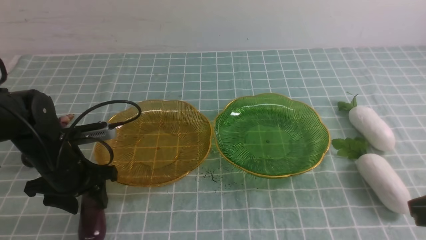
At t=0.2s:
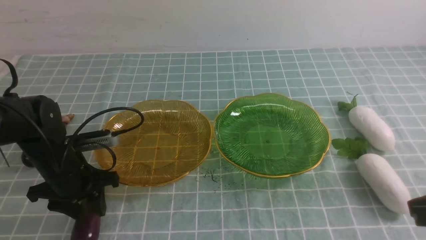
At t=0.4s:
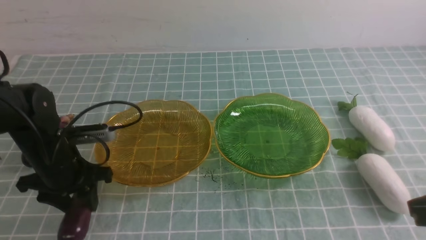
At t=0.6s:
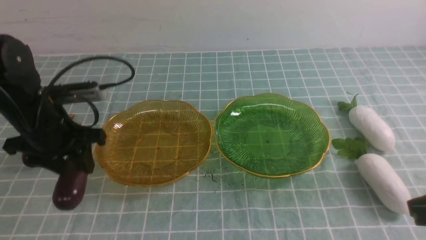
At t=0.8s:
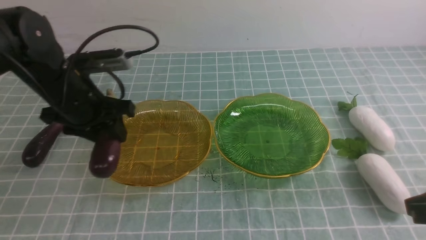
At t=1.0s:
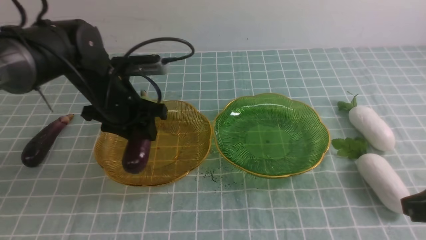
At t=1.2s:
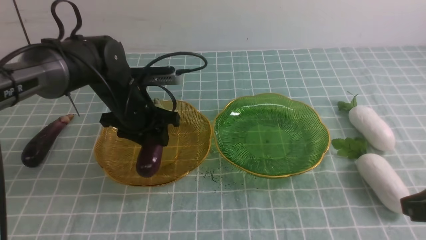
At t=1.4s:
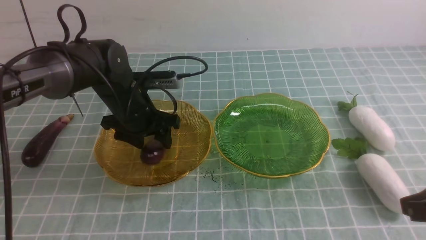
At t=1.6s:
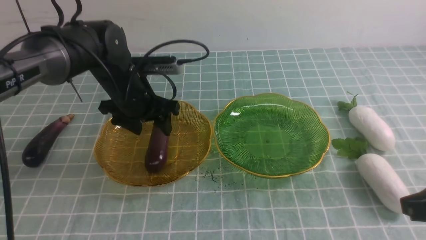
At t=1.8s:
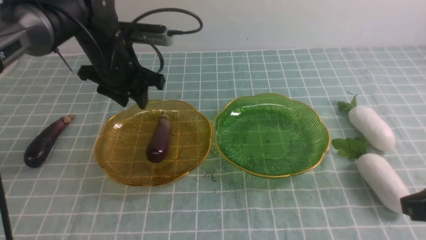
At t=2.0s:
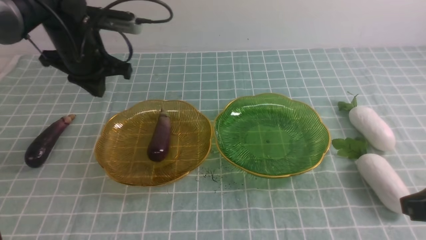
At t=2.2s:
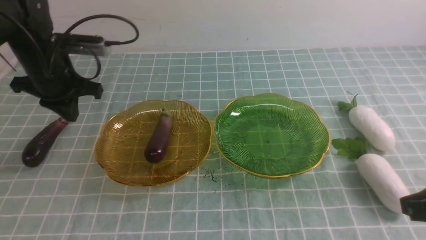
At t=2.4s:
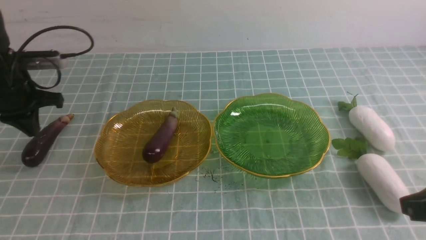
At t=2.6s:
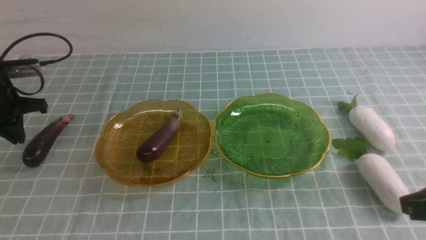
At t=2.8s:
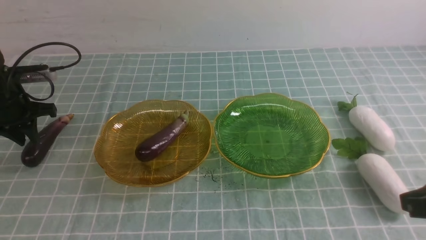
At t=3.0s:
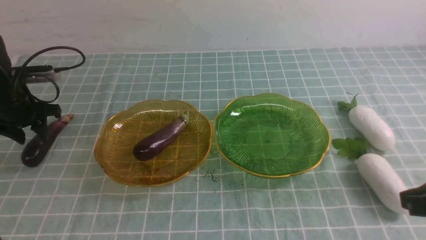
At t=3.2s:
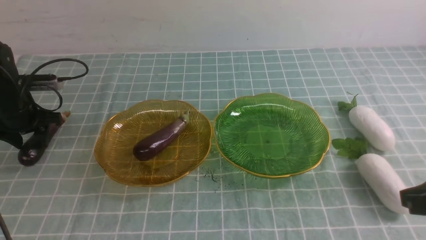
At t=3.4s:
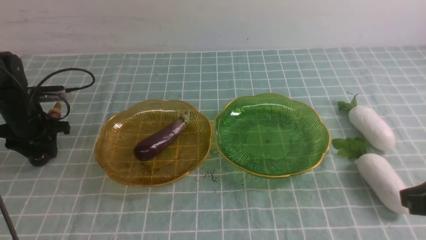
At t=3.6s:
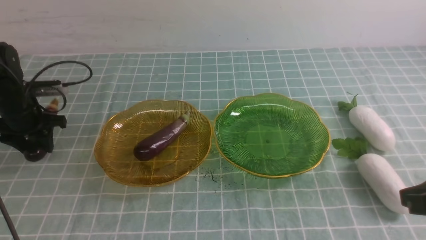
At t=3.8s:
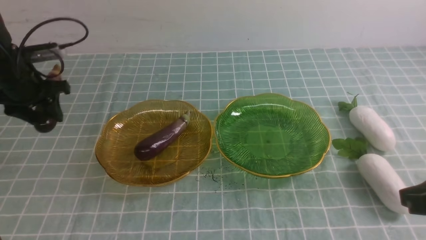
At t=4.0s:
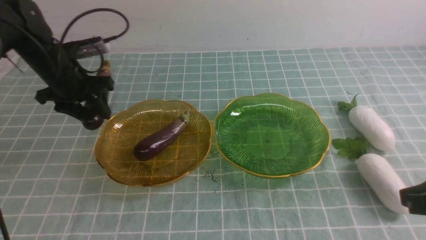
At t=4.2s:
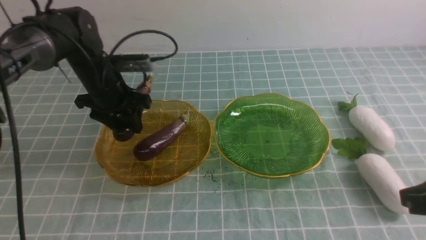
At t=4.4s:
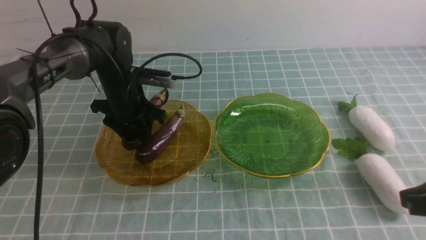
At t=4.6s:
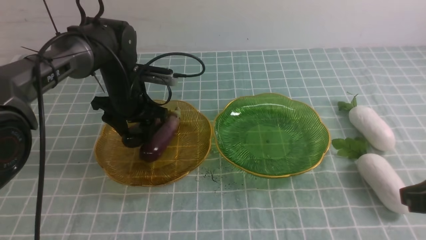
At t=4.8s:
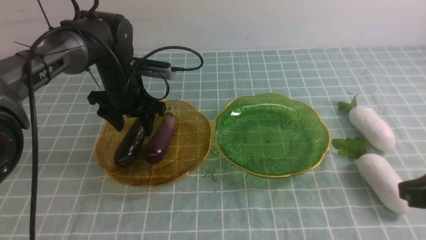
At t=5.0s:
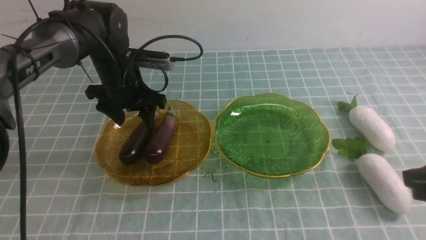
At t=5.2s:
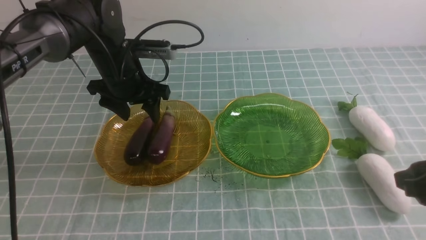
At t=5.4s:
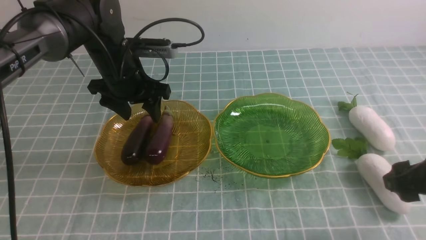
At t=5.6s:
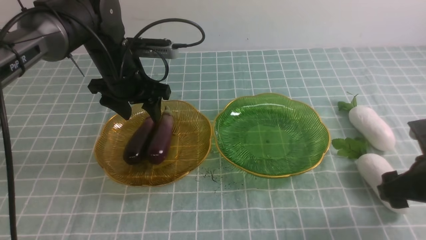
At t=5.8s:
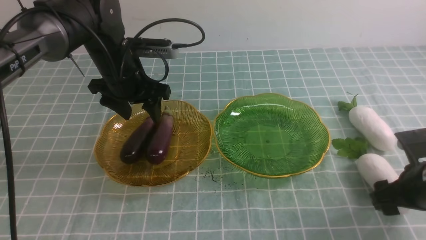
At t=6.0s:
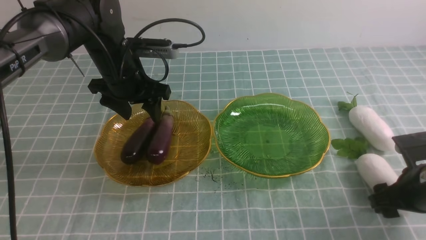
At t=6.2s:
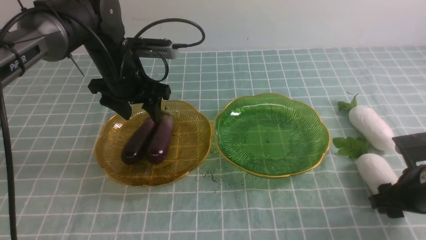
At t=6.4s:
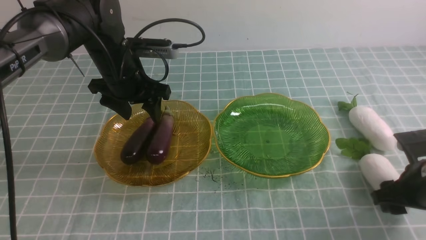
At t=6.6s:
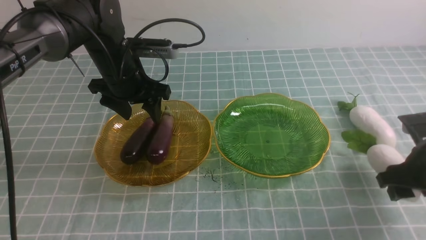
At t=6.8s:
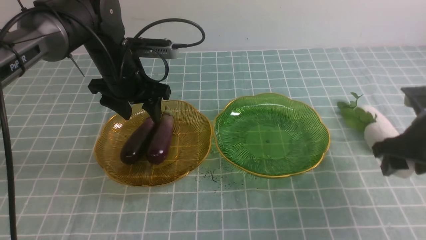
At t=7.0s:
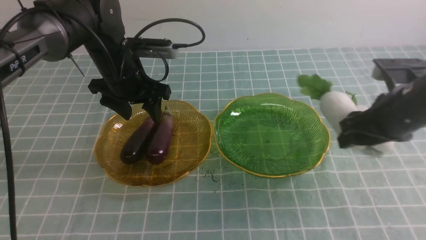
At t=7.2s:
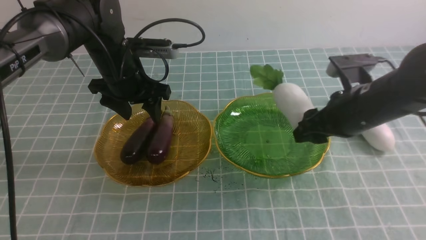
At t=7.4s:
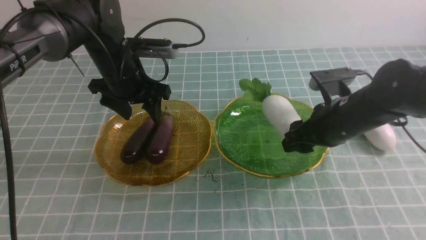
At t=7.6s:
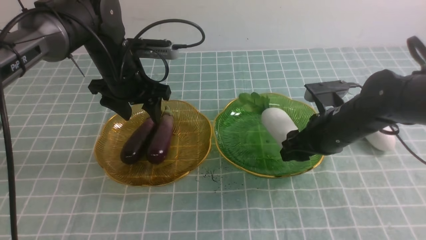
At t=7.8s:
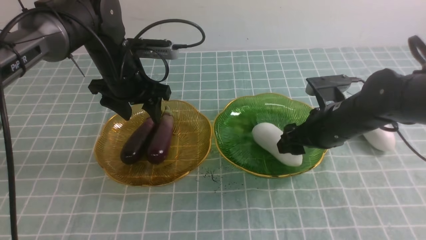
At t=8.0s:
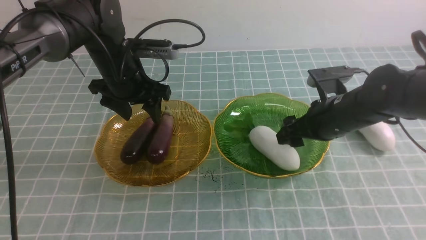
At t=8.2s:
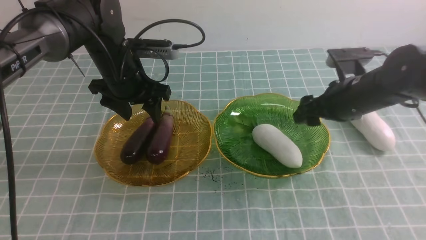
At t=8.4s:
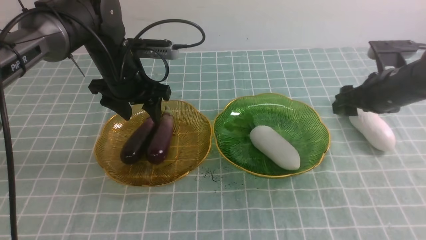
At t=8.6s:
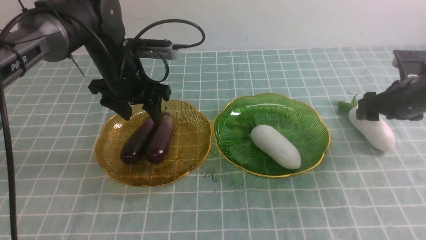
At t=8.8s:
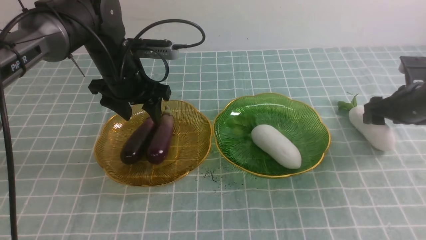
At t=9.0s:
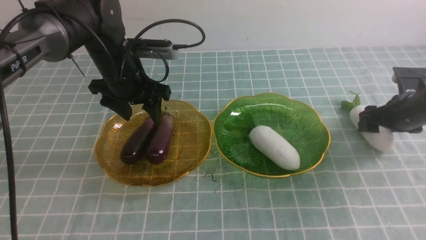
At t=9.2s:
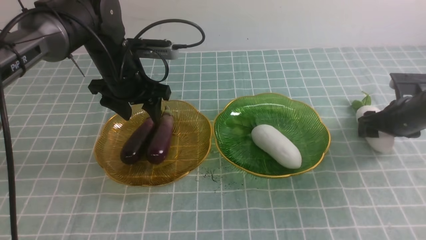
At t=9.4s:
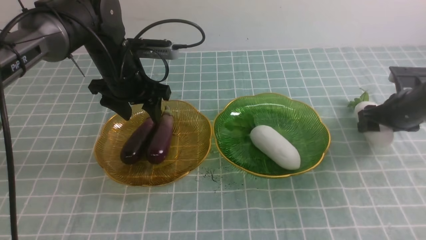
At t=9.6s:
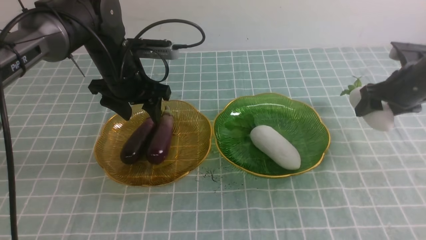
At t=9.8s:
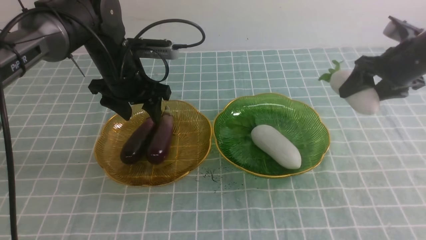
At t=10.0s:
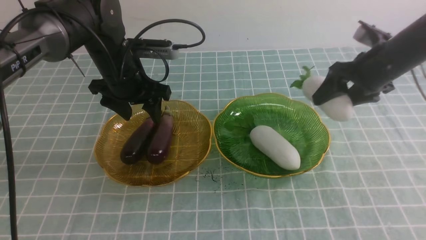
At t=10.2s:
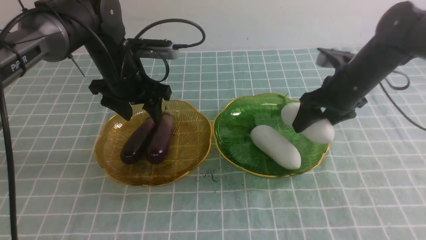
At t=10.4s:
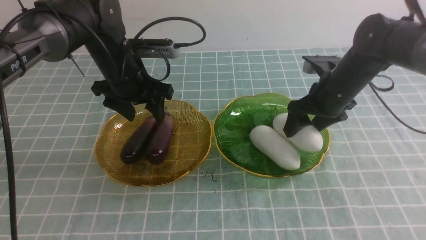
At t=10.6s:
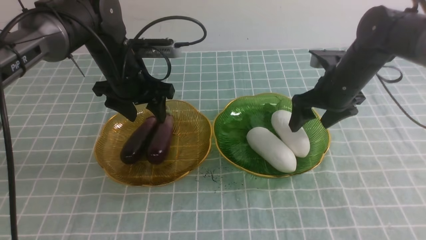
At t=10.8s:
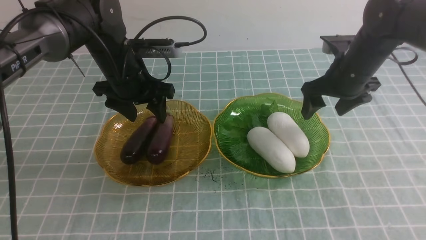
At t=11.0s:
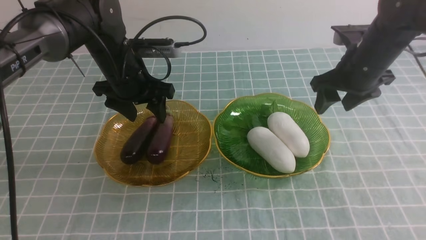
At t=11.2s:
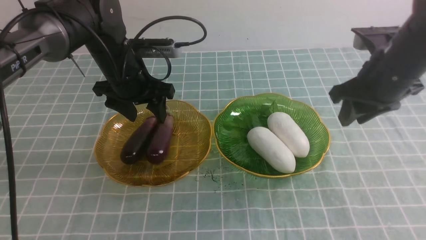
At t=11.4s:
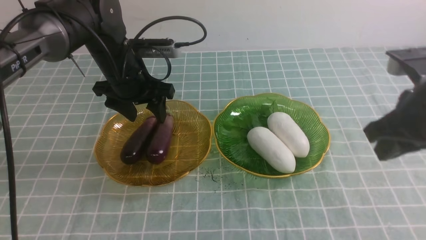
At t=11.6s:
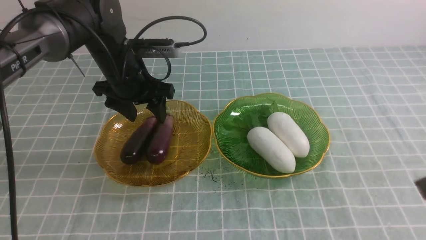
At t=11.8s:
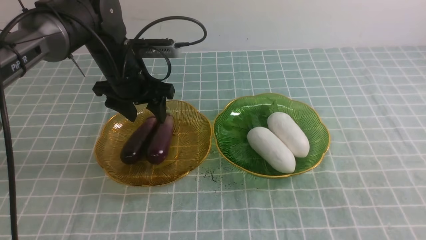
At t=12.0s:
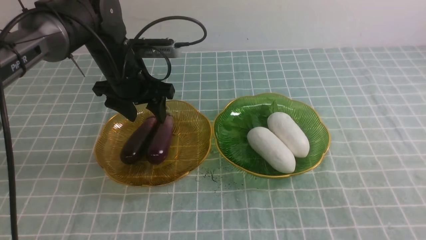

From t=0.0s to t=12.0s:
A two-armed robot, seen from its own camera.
Step, from t=0.0s to t=4.8s: use the left arm to grab an eggplant and put it into the left plate.
Step, from t=5.0s to t=8.0s: use the right arm to grab a radish and put it into the right plate.
Step, from t=8.2s to t=10.6s: use the right arm to grab a radish and put it into the right plate.
From t=0.0s to t=1.6s: The left gripper moves forward, to the right and upward, some 15 cm.
From t=1.6s to t=3.0s: The left gripper shifts some 20 cm to the left, and closes, then opens again.
From t=3.0s to t=4.4s: The left gripper travels to the right by roughly 20 cm.
From t=4.4s to t=6.0s: The right gripper shifts about 15 cm downward and forward, and opens its fingers; the left gripper heads upward, covering roughly 5 cm.
From t=6.0s to t=7.6s: The right gripper shifts about 15 cm to the left and forward.
From t=7.6s to t=9.0s: The right gripper goes about 15 cm to the right.
From t=9.0s to t=10.4s: The right gripper goes roughly 15 cm to the left and upward.
From t=10.4s to t=12.0s: The right gripper heads backward, covering approximately 35 cm, and closes up.

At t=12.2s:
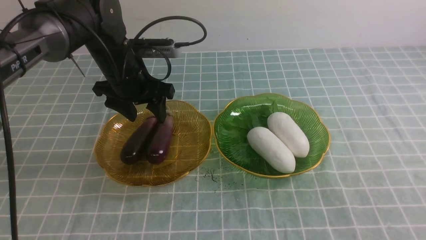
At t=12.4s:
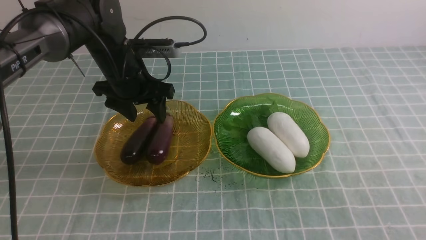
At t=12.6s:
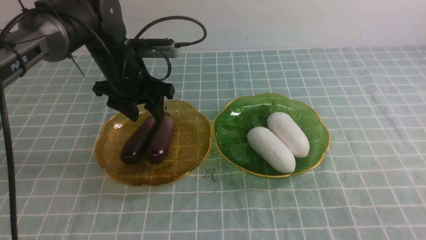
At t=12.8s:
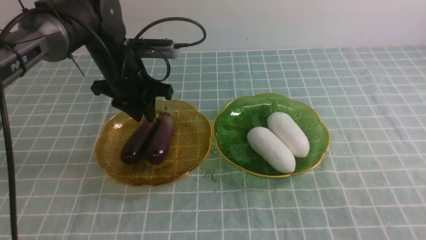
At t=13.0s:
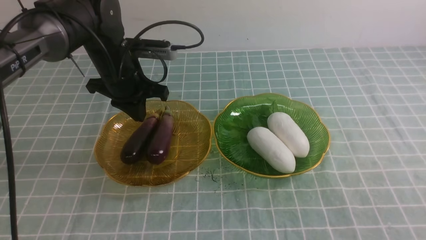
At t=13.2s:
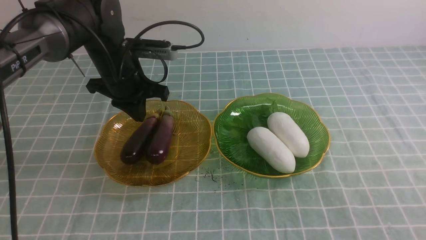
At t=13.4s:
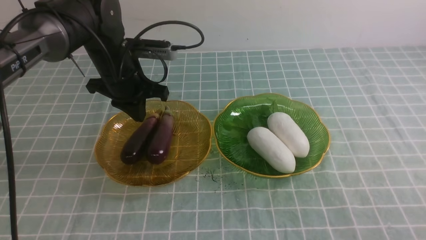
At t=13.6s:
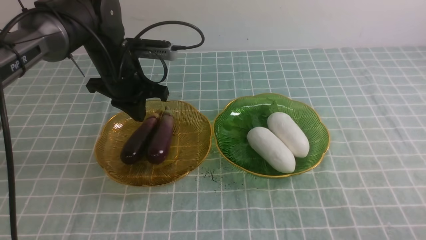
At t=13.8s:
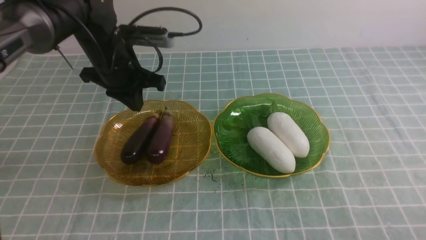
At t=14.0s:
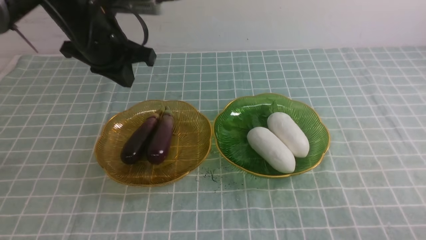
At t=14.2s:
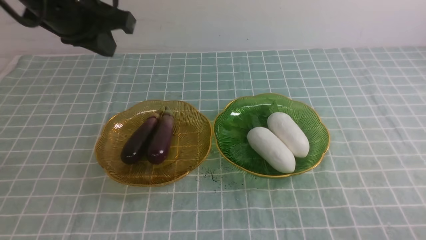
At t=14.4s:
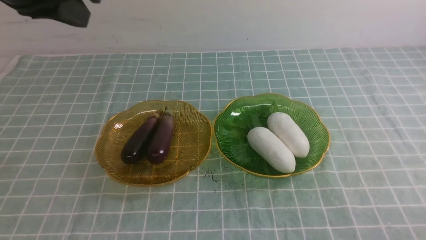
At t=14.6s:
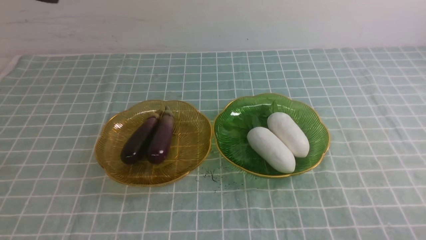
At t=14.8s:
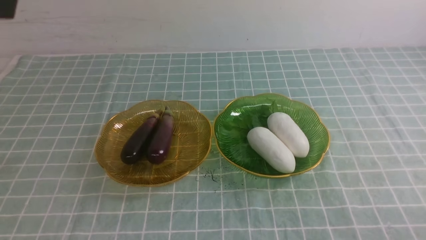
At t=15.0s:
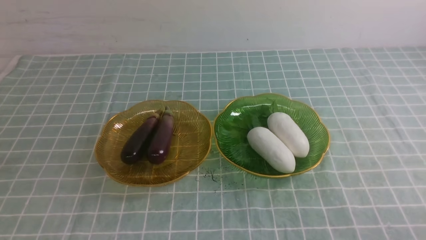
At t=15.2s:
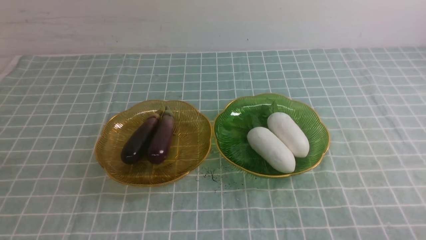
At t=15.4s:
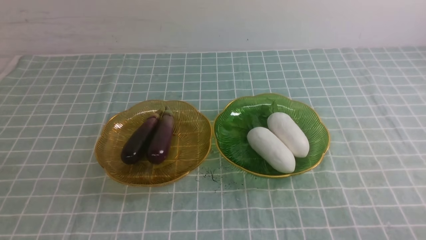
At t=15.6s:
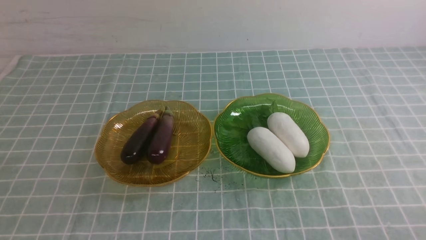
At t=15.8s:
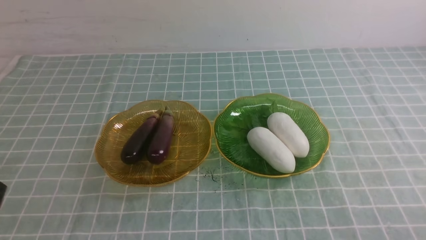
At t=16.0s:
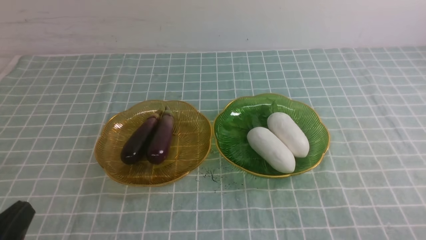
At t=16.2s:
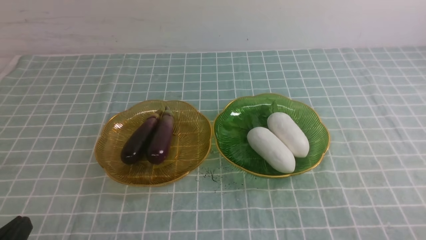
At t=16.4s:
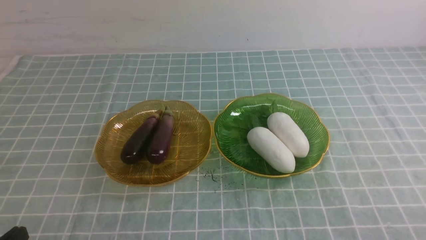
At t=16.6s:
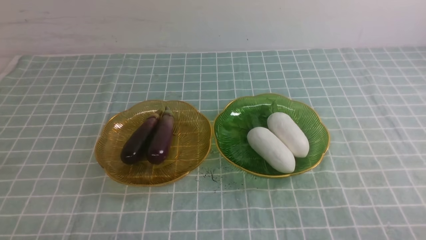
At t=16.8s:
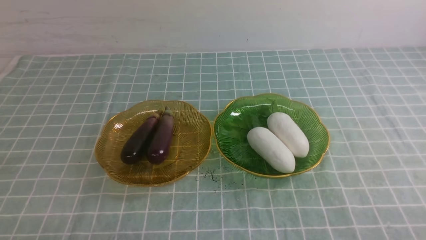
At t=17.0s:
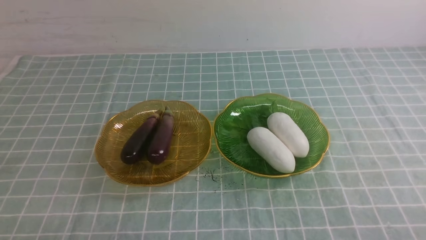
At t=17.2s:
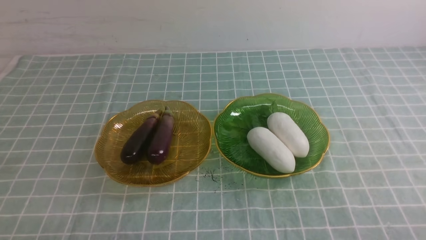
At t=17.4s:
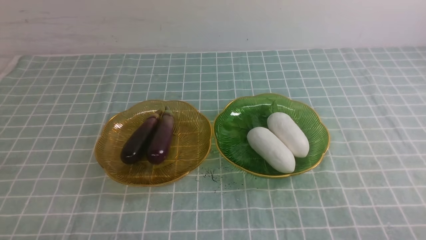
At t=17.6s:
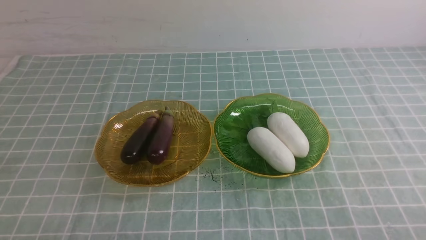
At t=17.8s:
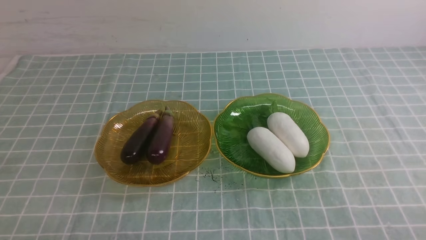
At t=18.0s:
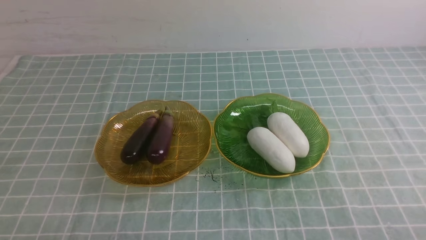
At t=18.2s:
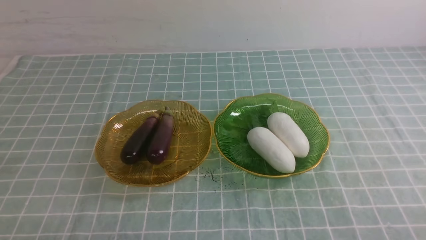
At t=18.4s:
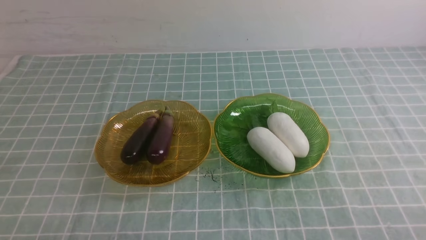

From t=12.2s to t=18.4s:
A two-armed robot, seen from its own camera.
From t=12.2s to t=13.8s: The left gripper closes up, while the right gripper goes roughly 10 cm downward.
From t=13.8s to t=15.4s: The left gripper shifts about 35 cm backward.
From t=16.8s to t=18.4s: Neither gripper changes place.
